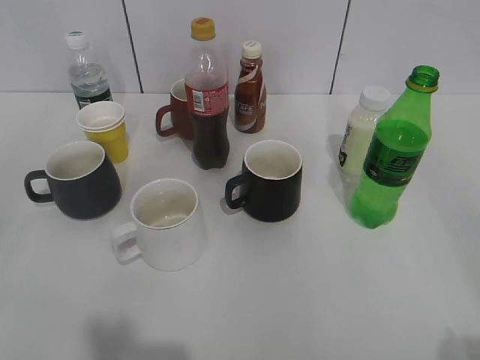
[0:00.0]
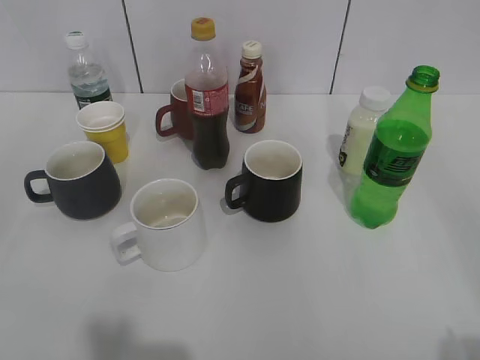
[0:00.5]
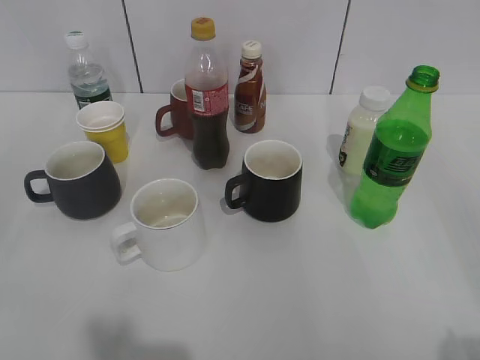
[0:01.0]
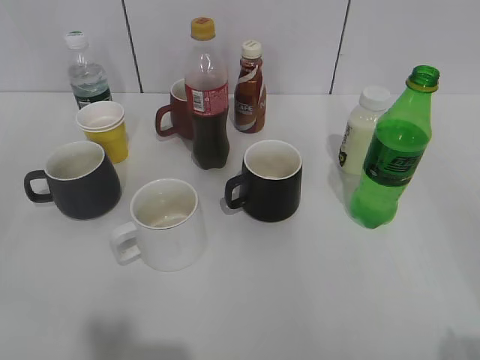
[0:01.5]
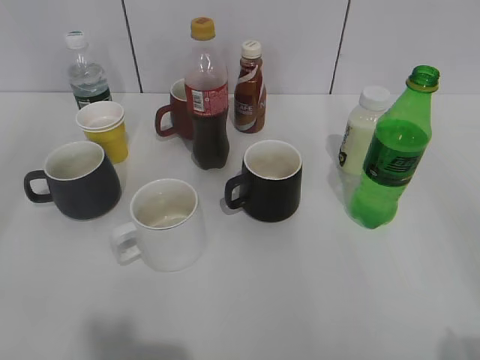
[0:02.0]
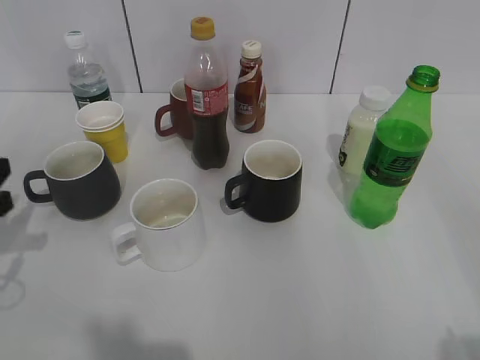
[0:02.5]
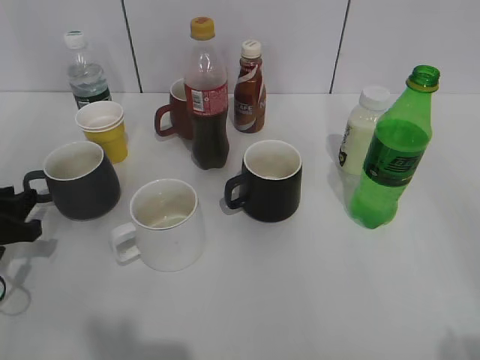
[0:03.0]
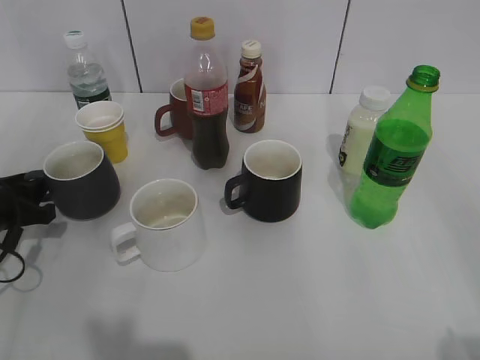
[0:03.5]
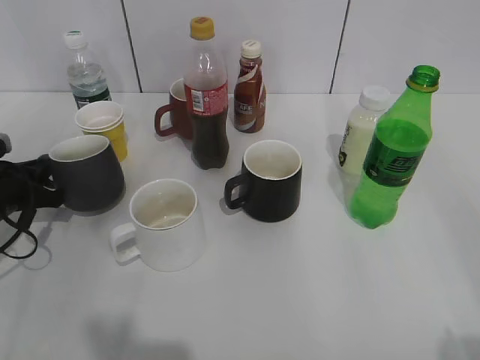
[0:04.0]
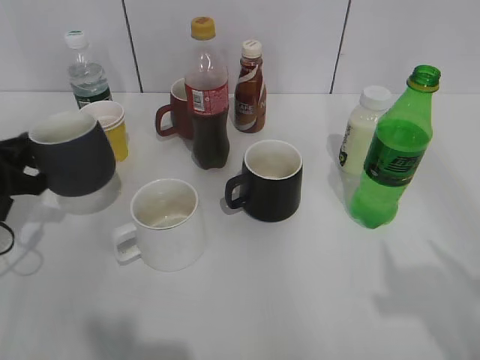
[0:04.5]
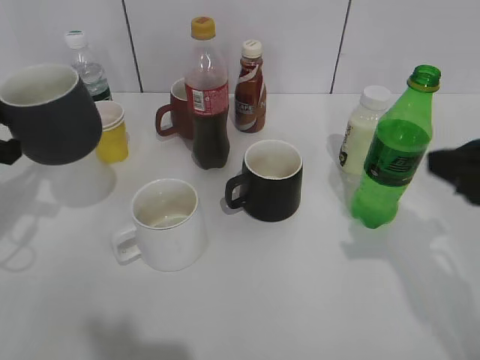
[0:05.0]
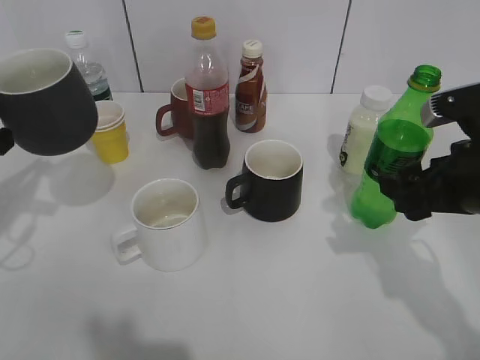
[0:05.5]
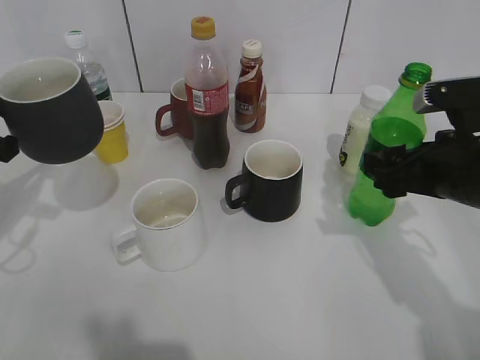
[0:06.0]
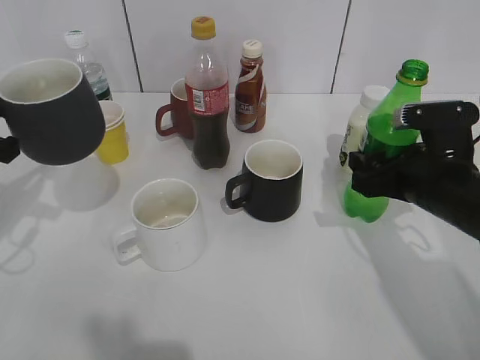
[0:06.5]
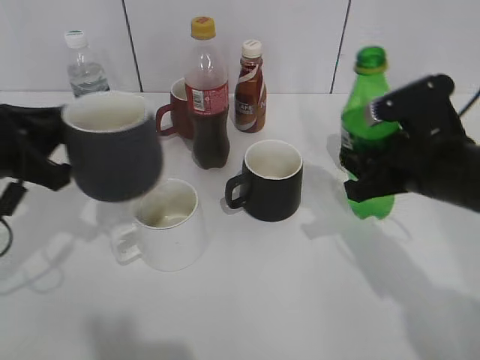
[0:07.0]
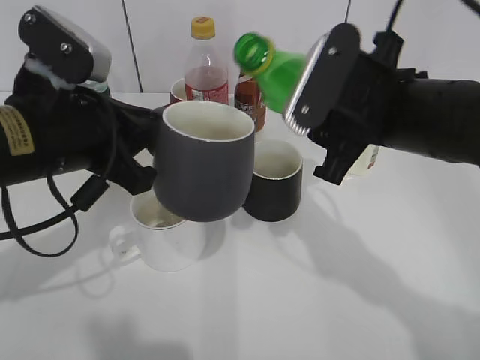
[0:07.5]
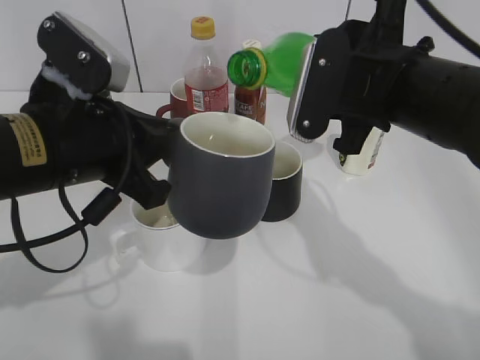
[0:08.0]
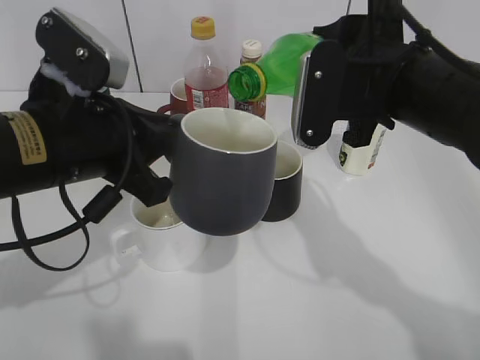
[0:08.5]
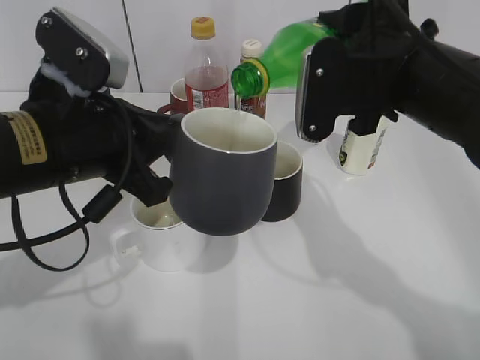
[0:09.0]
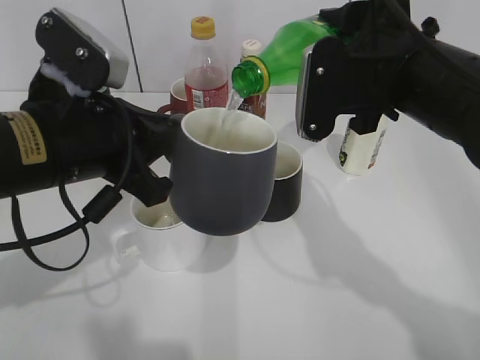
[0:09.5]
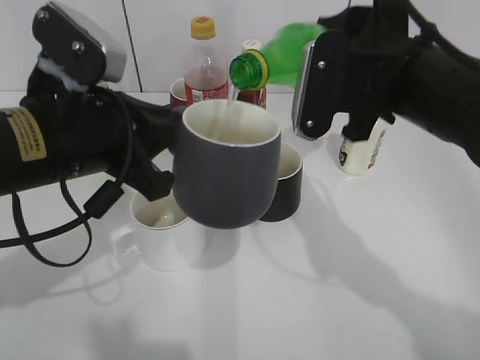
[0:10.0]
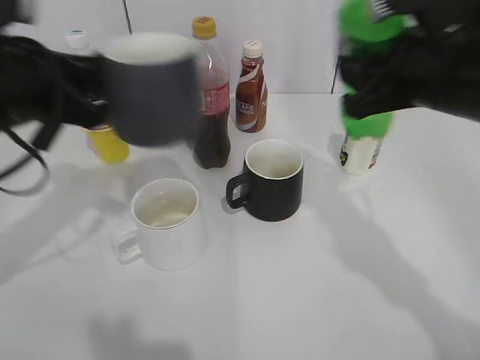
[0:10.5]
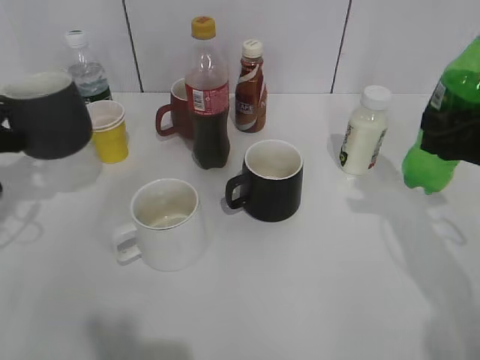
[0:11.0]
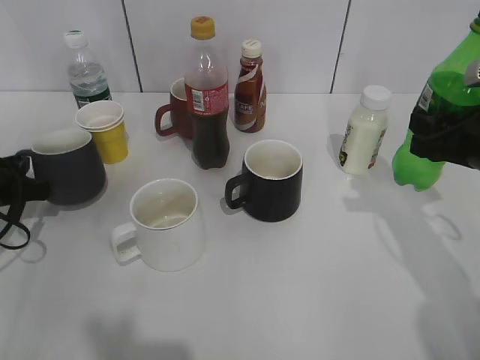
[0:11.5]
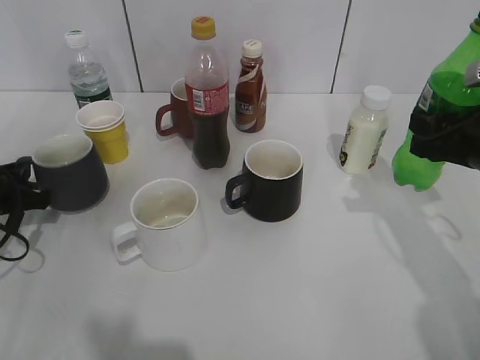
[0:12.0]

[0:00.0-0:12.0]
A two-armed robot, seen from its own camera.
Step, 0:02.5 to 0:03.5: Grasp the grey cup with left gripper.
Step, 0:04.0 to 0:05.0: Lift the grey cup with left gripper.
Step, 0:05.5 to 0:06.5: Grasp the bottle with sprite with right gripper.
Step, 0:07.0 to 0:10.0: Pour the sprite from bottle to cup with right gripper.
0:02.0 to 0:04.0: The left gripper goes some 30 cm downward and forward, and closes its fingers.
0:04.0 to 0:06.0: The right gripper moves forward and downward, about 25 cm; the left gripper heads upward and backward, covering approximately 15 cm.
0:06.0 to 0:08.0: The right gripper shifts approximately 10 cm to the left and upward, and closes up; the left gripper heads to the right, covering some 15 cm.
0:08.0 to 0:10.0: There are only small adjustments of the grippers.
0:10.0 to 0:12.0: The right gripper travels to the right and downward by approximately 15 cm. Meanwhile the left gripper travels to the left, downward and forward by about 25 cm.

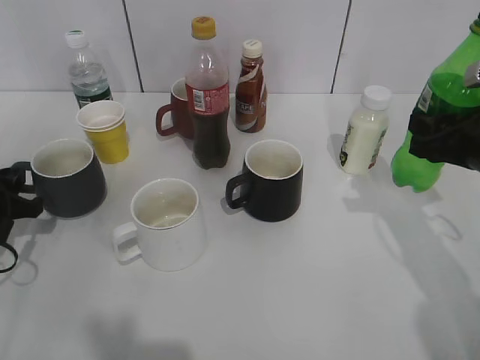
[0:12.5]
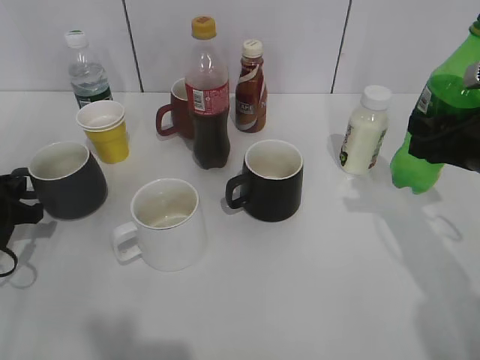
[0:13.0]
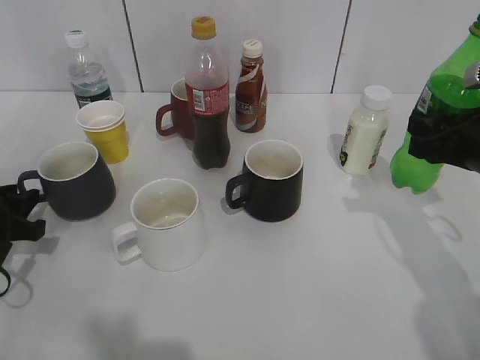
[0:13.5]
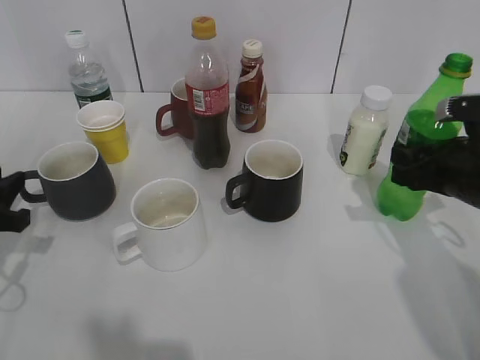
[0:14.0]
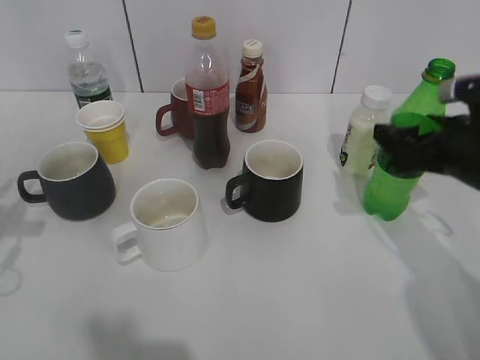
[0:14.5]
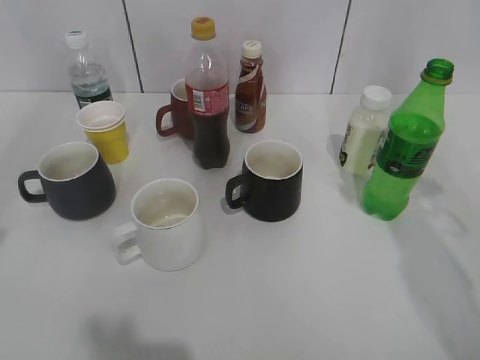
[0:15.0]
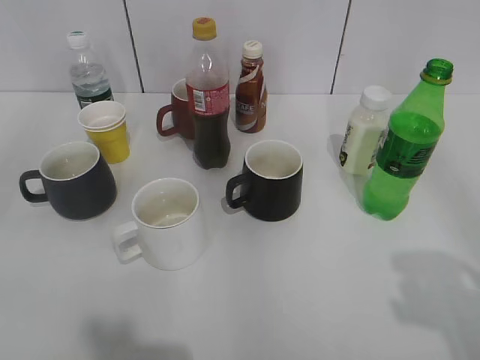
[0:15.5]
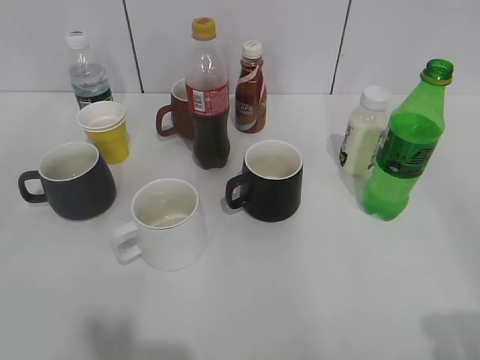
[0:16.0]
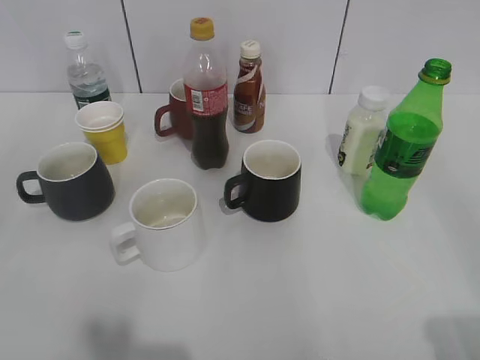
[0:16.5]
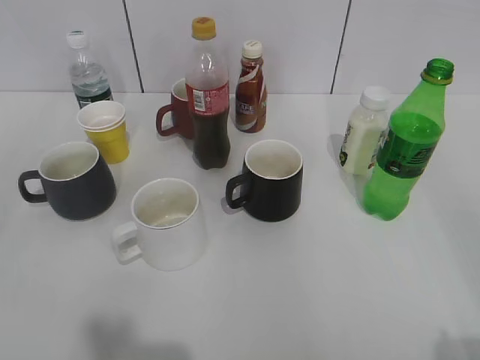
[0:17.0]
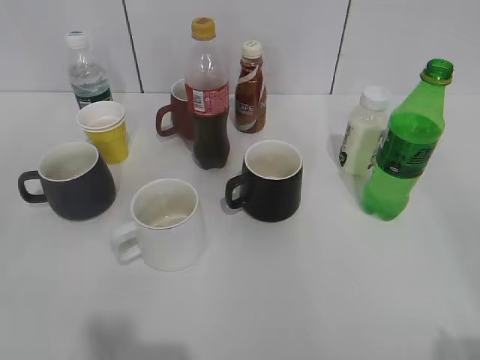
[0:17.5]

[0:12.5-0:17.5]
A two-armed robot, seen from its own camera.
Step, 0:14.0 to 0:14.5: Place the sprite bottle on the table with right gripper.
0:12.5 to 0:15.0: The left gripper shifts some 25 cm upward and backward, and opens its fingers. Meanwhile the right gripper goes roughly 15 cm upward, and opens up.
0:15.0 to 0:17.5: The right gripper heads backward, covering about 25 cm.

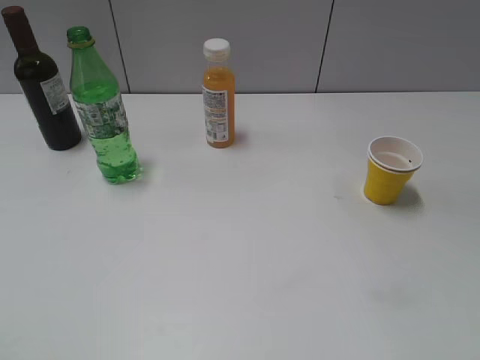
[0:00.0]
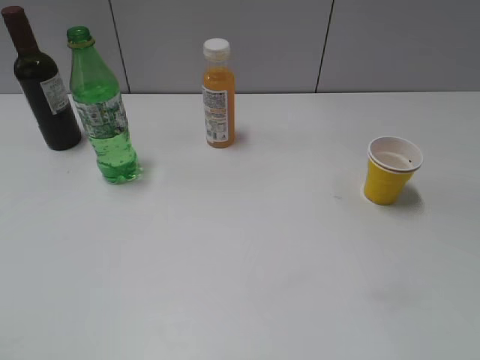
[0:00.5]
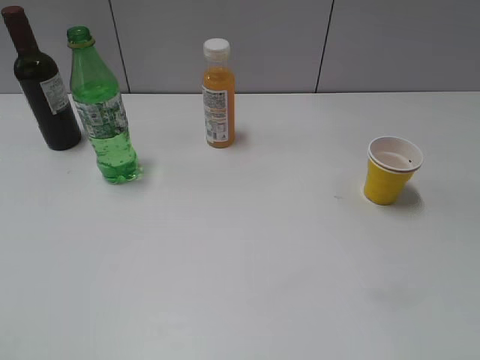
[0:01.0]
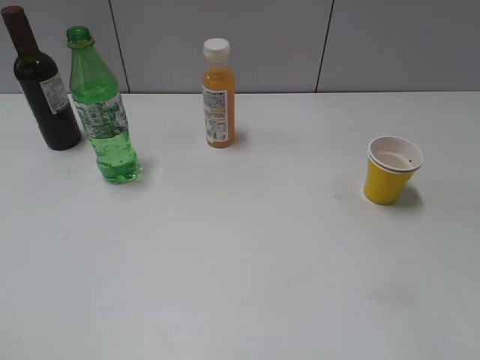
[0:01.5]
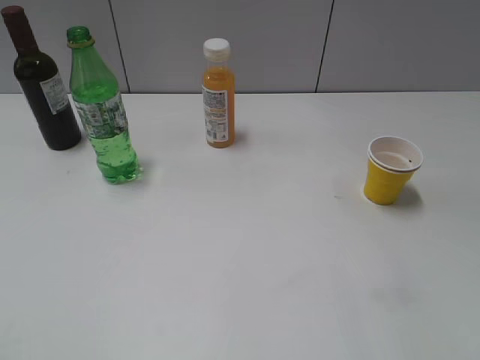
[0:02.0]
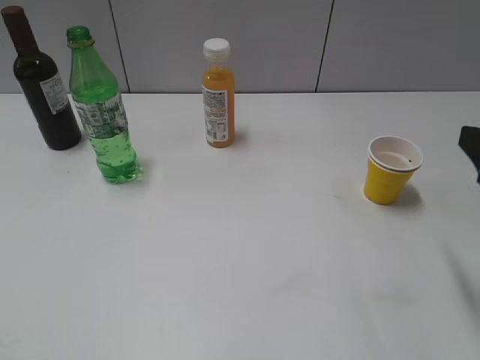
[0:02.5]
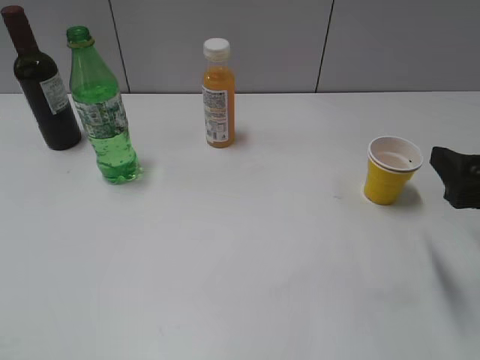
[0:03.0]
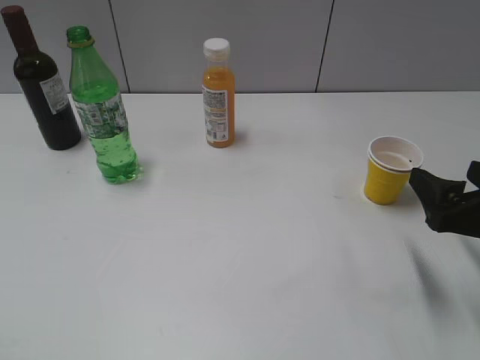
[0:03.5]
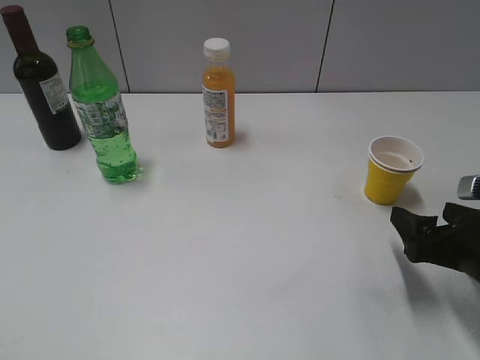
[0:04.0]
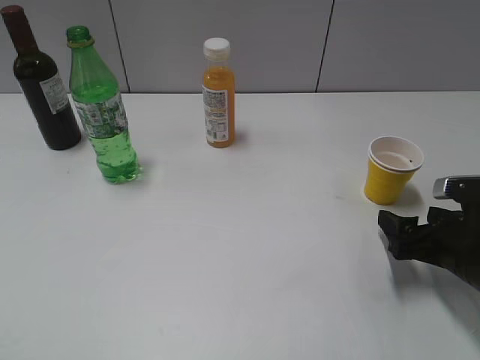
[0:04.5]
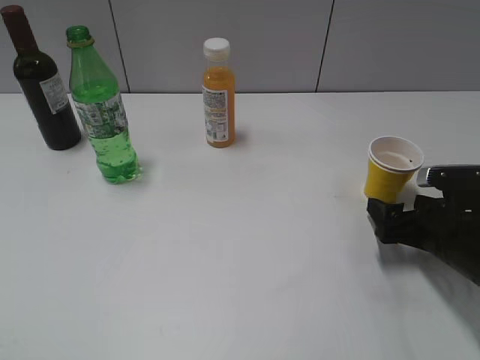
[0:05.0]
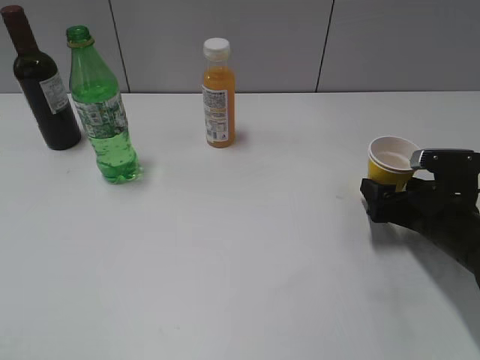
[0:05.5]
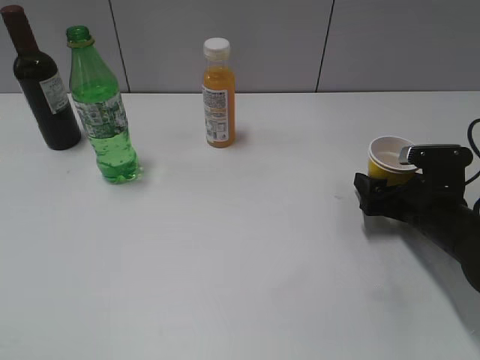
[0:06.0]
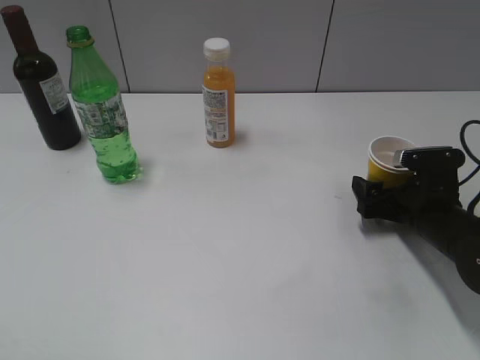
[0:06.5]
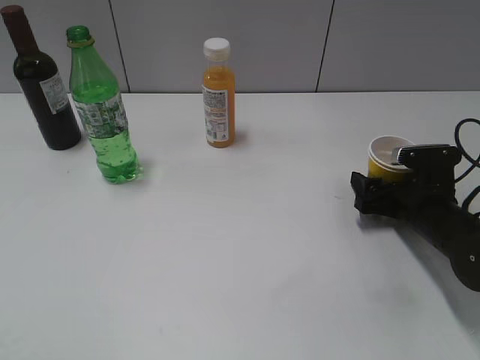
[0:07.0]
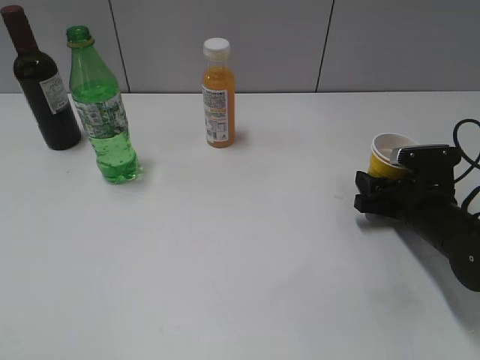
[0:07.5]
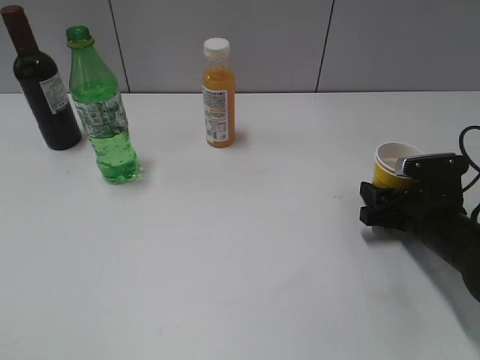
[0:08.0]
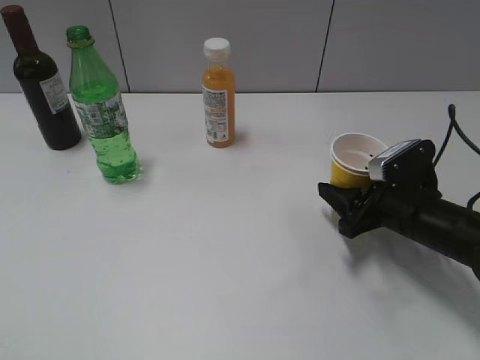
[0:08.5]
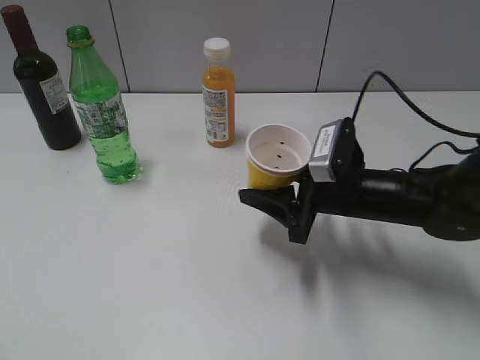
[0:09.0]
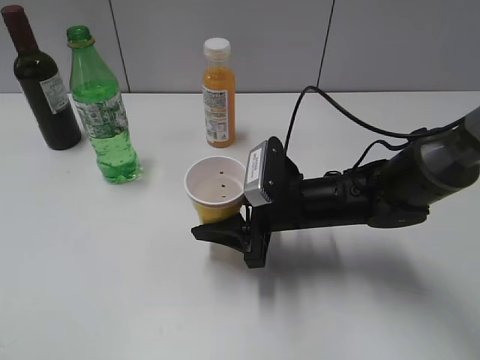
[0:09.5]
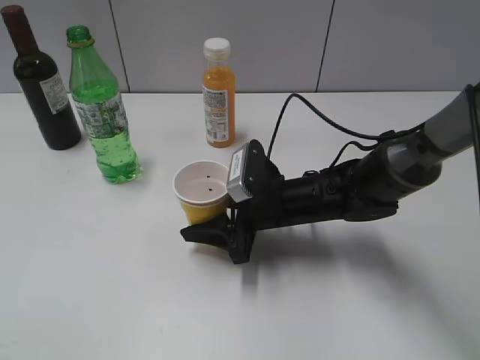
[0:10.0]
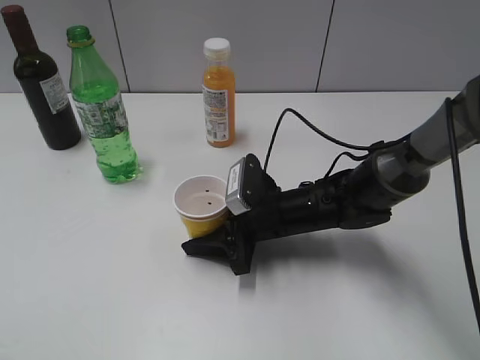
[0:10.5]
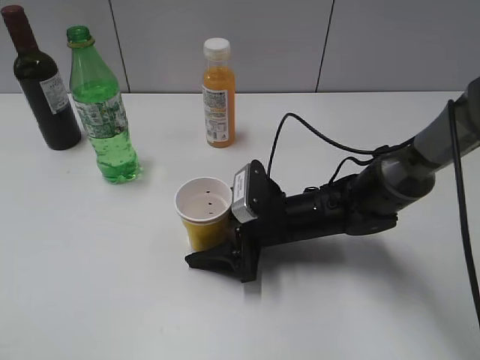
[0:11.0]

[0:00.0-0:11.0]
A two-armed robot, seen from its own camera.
Step, 0:01.0 to 0:07.5: Grasp the yellow paper cup with right gripper.
0:02.0 to 0:03.5: The right gripper moves downward and forward, some 15 cm.
0:03.5 to 0:05.5: The right gripper shifts roughly 15 cm downward and forward.
0:05.5 to 0:07.5: The right gripper closes.
0:07.5 to 0:09.0: The right gripper is displaced to the left and upward by some 10 cm.
0:09.0 to 0:11.0: The right gripper shifts roughly 10 cm to the left and downward, and opens up.
